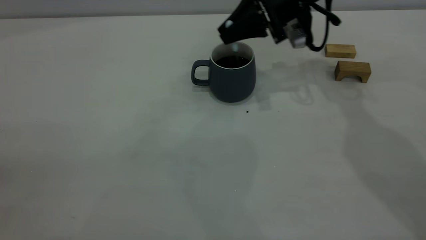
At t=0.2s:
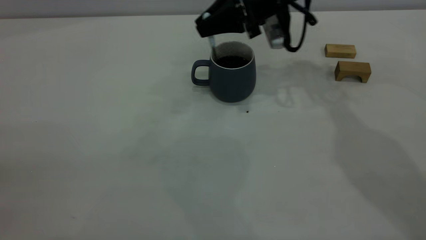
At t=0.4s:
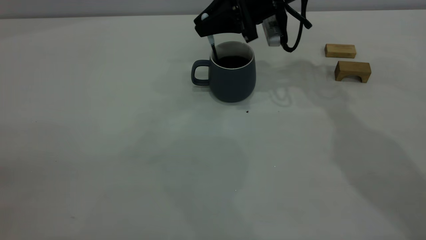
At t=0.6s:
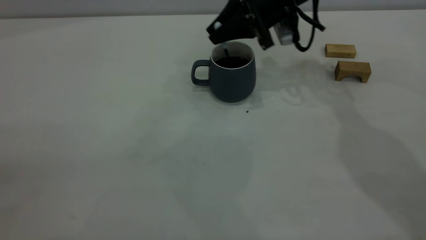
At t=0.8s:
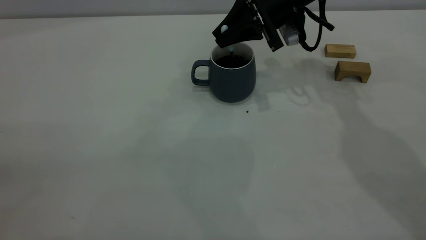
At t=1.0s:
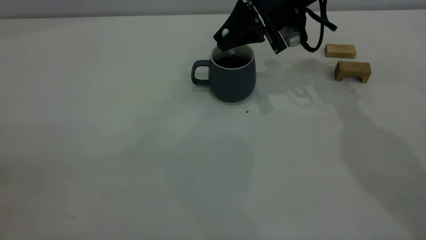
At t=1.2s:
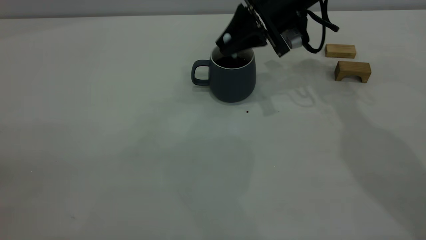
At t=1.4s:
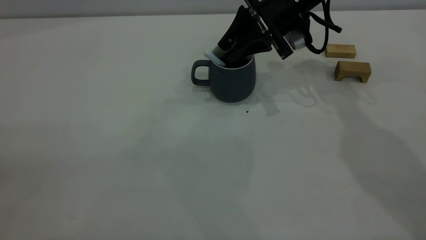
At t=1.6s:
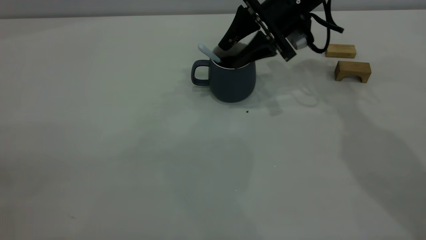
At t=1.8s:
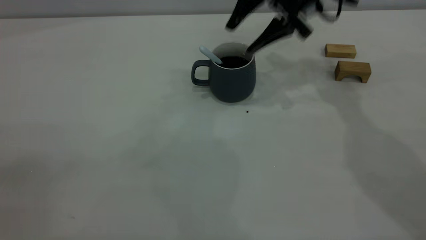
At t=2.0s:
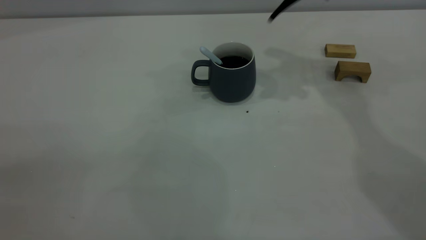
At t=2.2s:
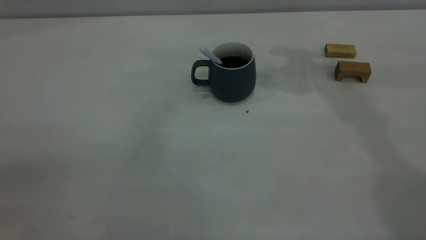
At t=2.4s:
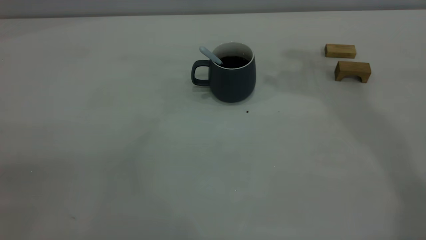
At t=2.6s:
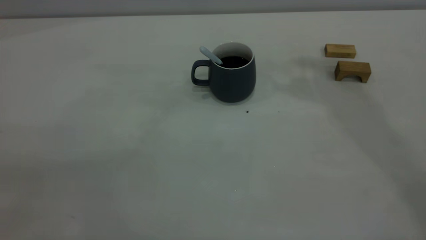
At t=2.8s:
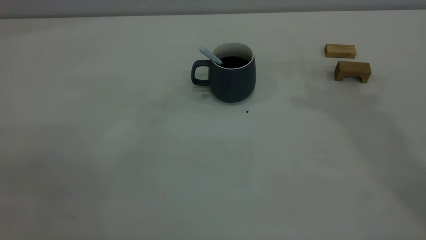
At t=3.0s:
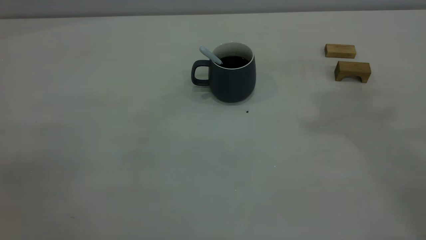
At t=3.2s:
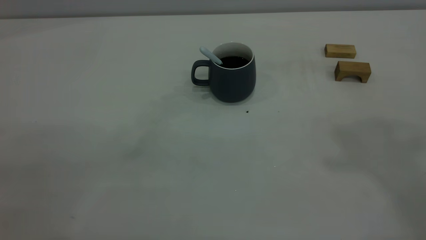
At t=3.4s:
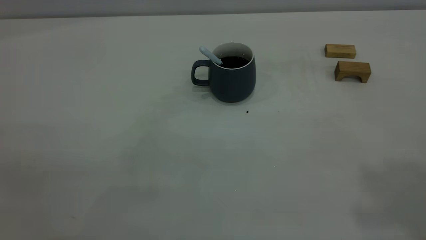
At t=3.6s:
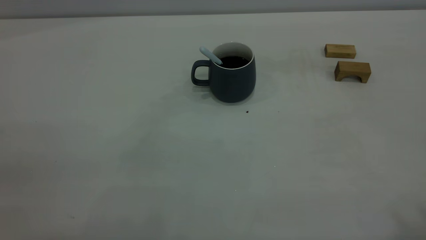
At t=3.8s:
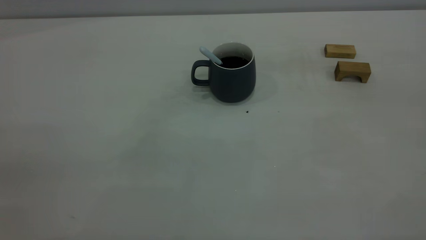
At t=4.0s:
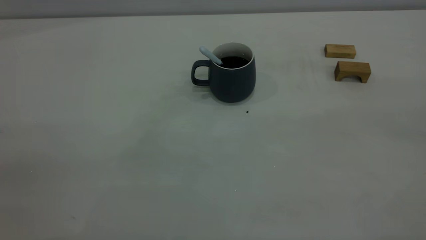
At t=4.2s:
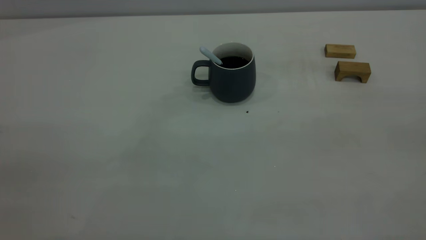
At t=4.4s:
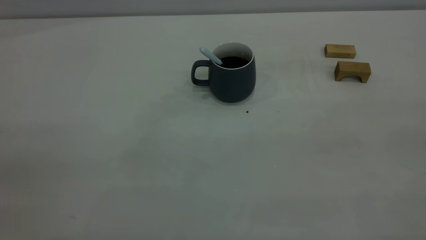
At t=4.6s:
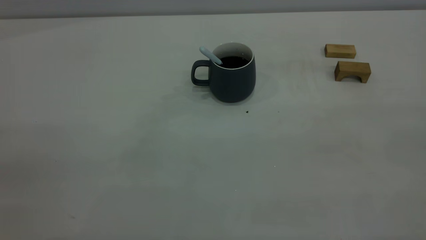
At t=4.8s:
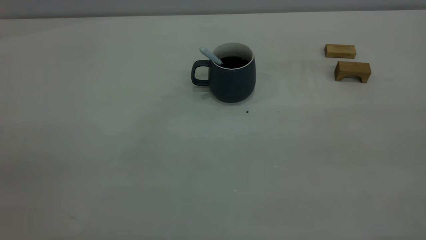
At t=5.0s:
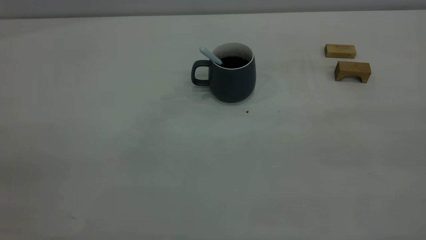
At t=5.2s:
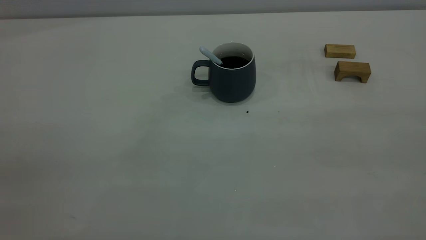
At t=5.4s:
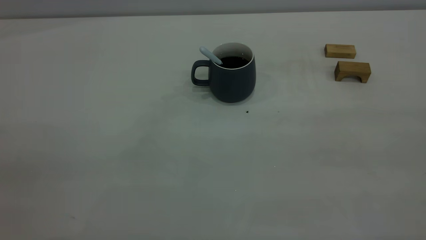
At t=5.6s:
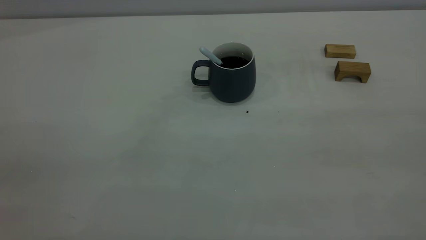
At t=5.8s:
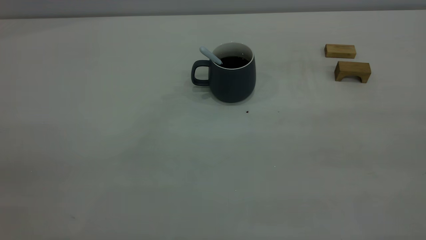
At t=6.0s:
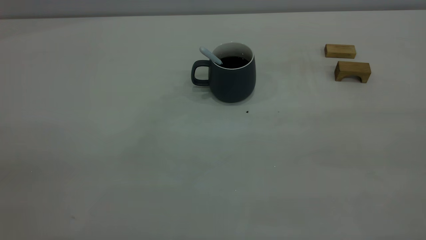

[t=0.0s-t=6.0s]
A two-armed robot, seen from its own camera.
t=0.0s to t=1.6s: The right gripper opens its fingers.
t=1.6s to t=3.0s: The right gripper moves upward and backward, some 50 cm.

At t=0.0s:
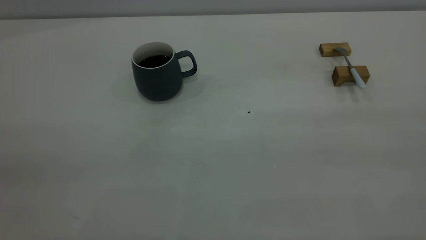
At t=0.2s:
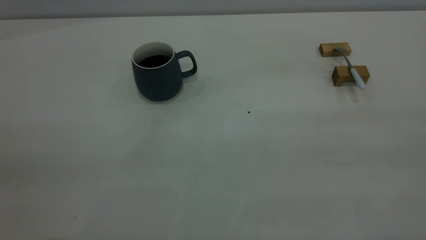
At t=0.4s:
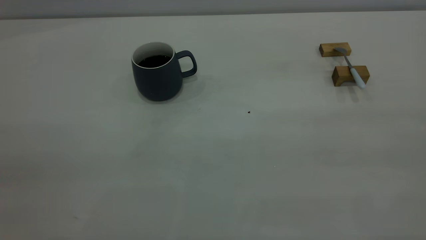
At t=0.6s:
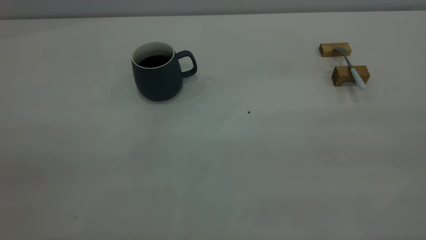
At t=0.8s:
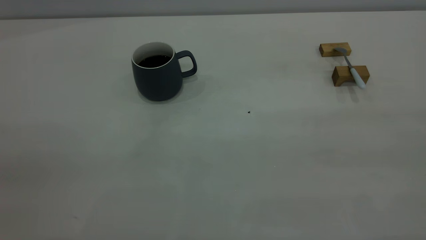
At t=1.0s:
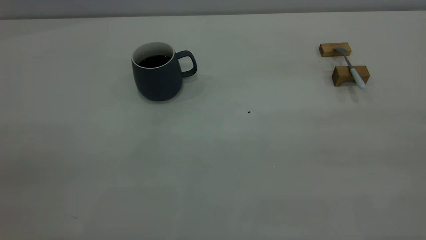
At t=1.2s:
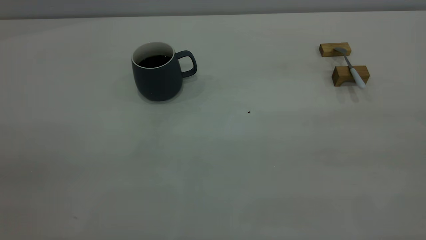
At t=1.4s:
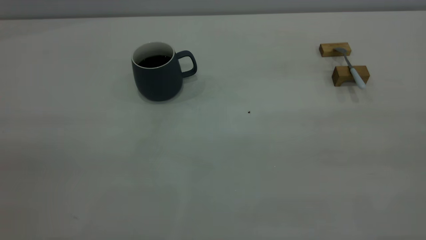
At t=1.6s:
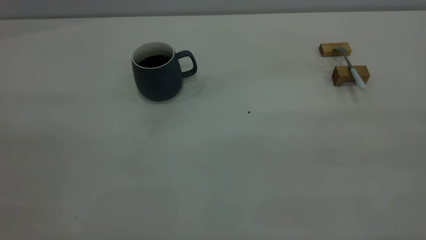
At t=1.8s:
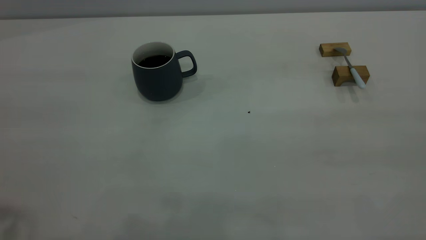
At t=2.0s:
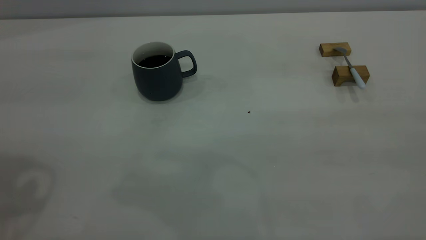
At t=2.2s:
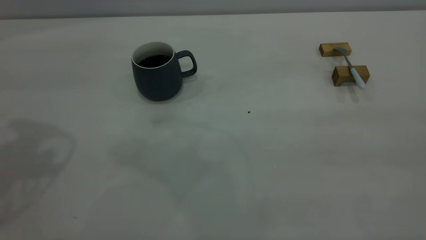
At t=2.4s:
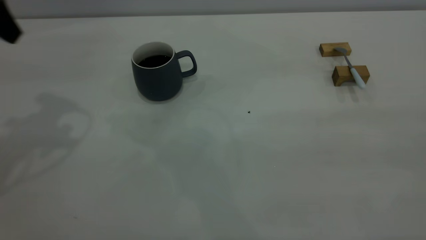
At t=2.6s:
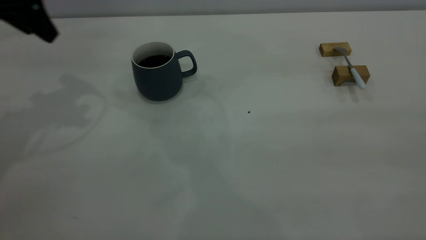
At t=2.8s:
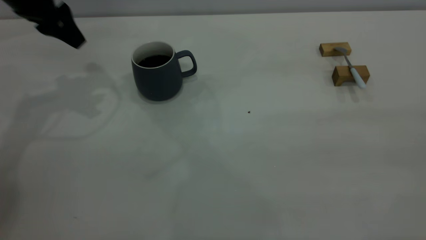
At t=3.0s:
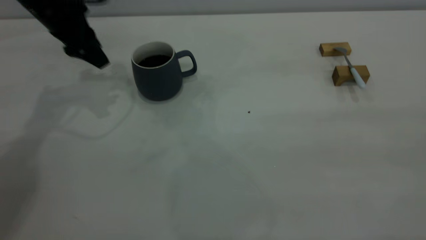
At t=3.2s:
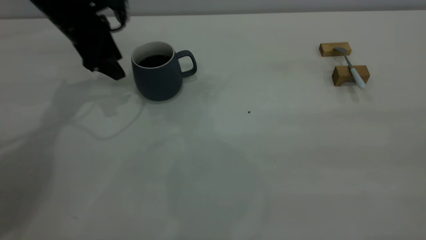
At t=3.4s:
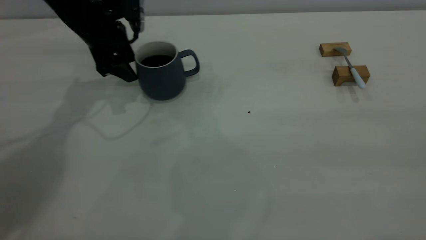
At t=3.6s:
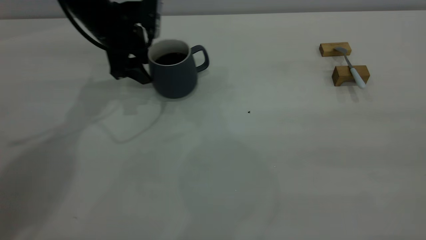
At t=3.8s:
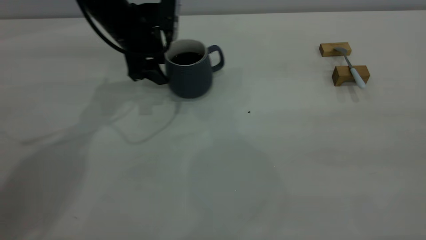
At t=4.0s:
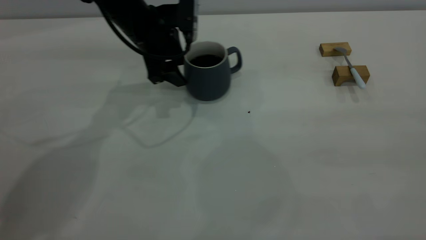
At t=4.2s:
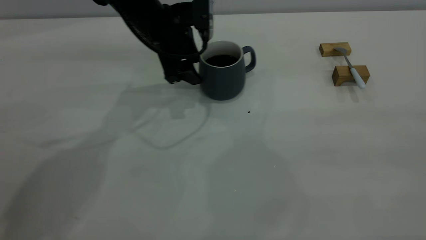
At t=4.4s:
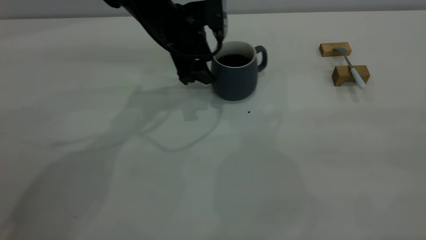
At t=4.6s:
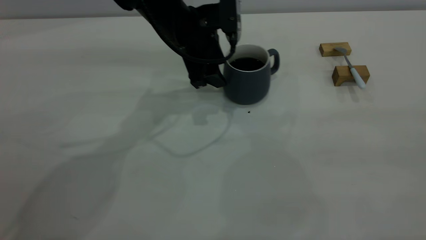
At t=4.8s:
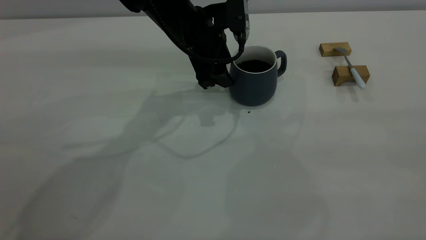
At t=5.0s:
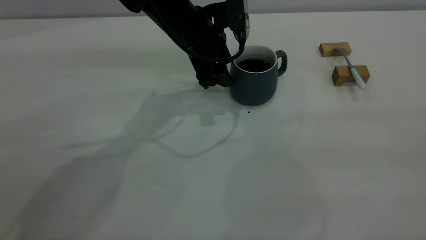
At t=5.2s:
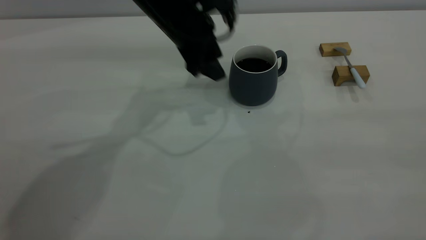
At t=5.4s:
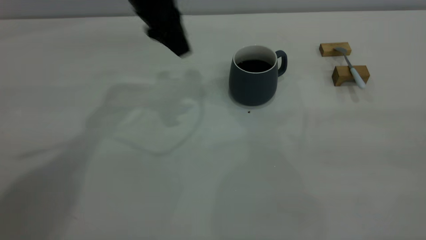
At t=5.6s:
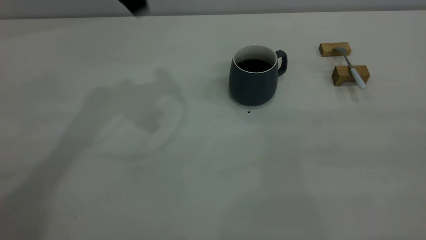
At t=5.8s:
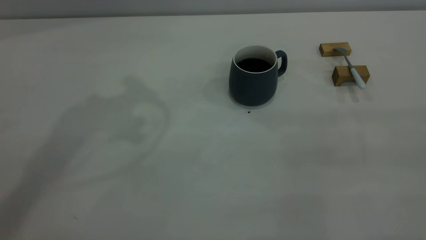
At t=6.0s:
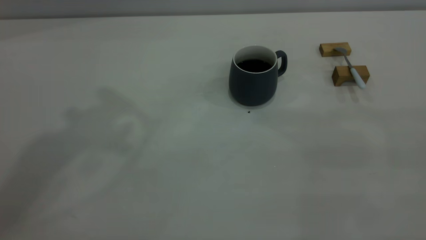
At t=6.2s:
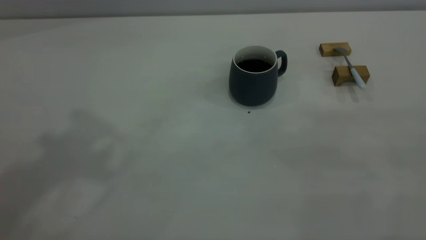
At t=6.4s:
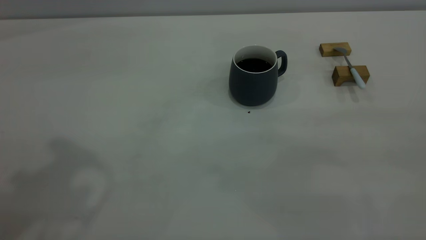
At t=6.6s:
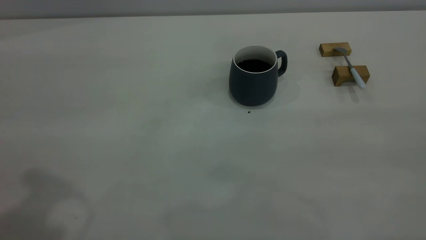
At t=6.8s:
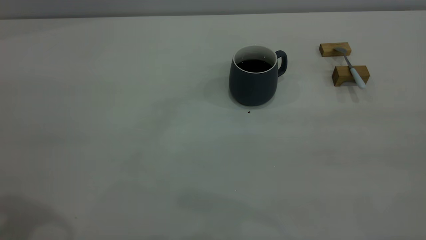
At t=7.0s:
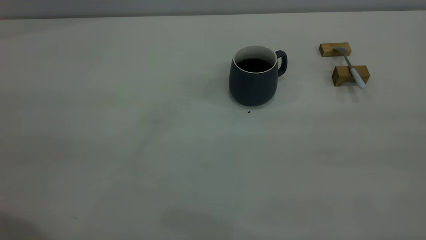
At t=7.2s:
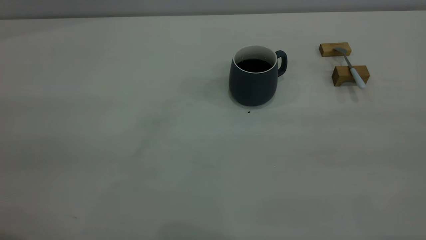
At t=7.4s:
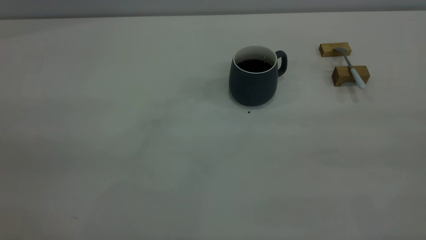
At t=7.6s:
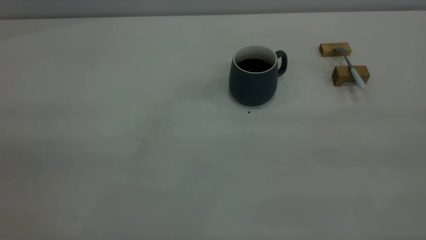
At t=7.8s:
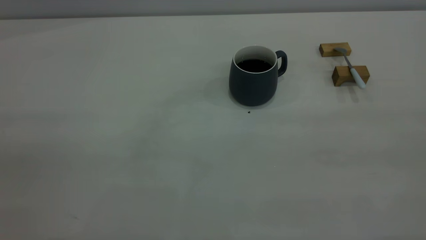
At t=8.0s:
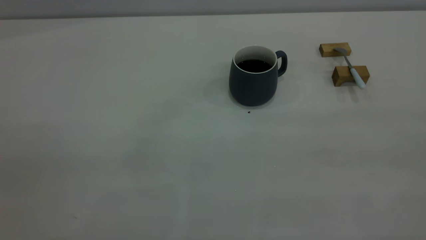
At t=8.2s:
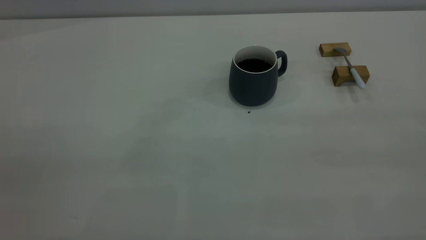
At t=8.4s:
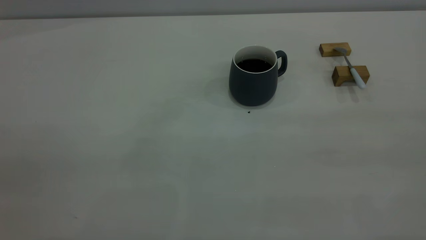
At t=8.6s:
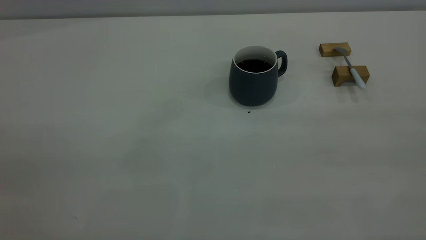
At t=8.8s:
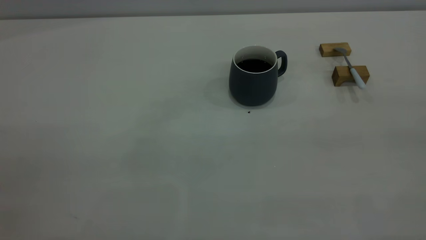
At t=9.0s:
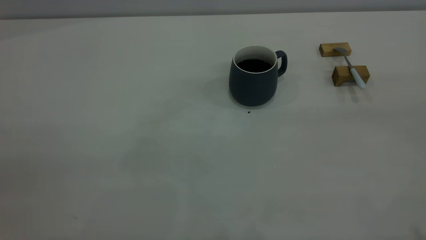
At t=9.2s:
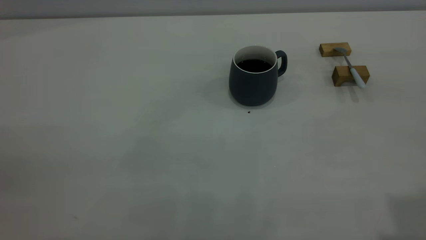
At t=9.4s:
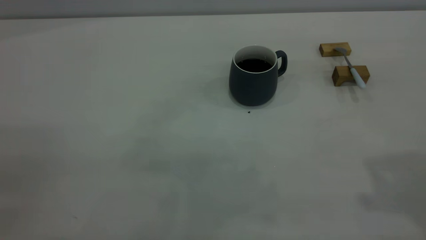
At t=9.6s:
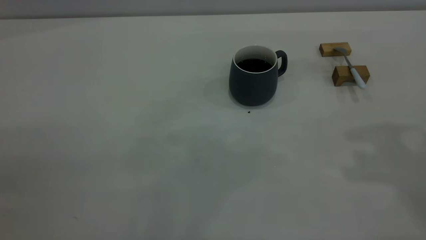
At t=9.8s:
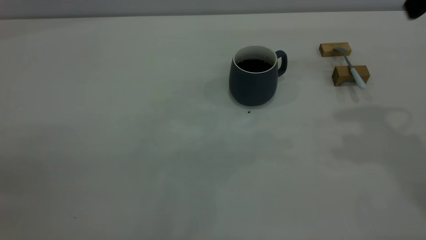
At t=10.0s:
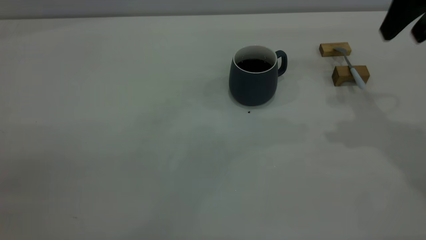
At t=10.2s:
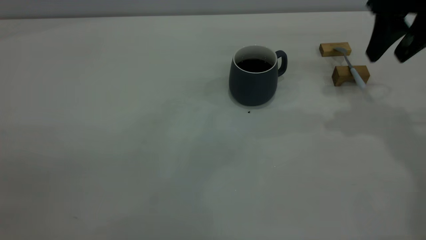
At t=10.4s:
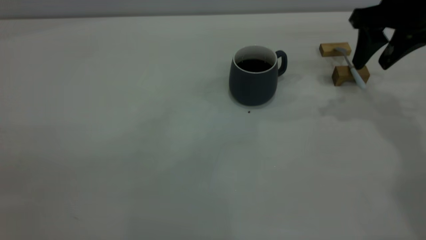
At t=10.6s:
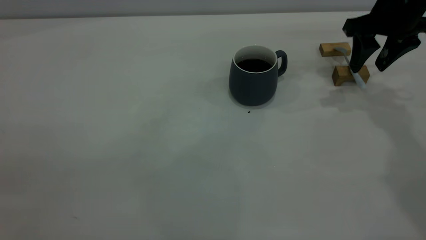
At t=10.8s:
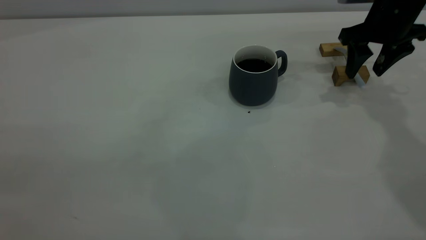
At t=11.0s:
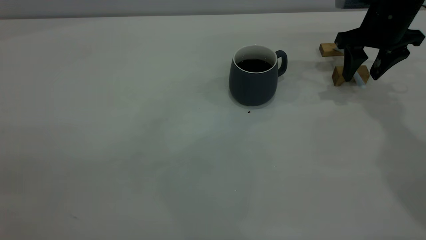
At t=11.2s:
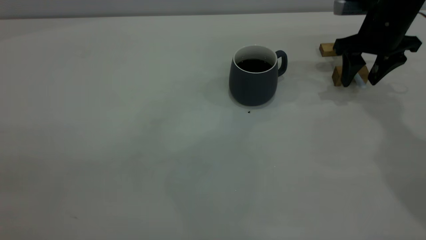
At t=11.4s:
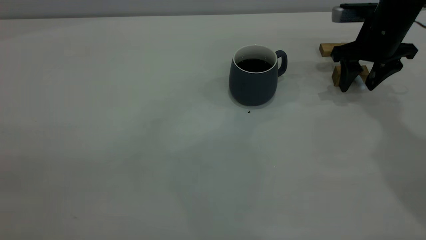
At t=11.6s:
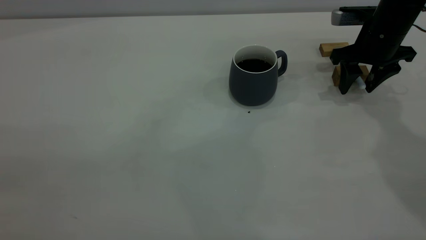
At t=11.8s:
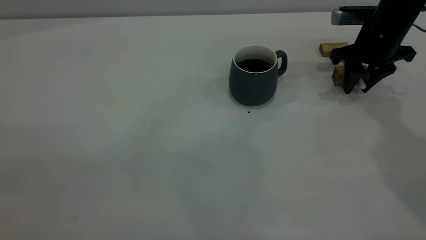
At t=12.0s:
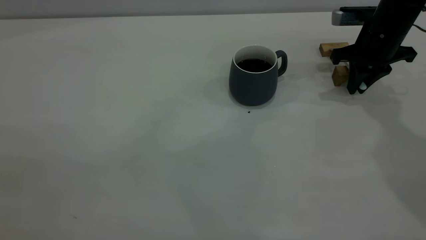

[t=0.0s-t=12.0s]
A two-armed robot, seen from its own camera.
Step, t=0.0s to t=5.2s: Move the cup with coffee to the center of view.
t=1.6s to t=3.0s: The left gripper travels forward and downward by approximately 40 cm.
t=3.0s to t=4.4s: The left gripper moves to the right, approximately 15 cm.
t=4.4s to t=6.0s: The left gripper moves upward, approximately 35 cm.
t=9.0s to t=10.4s: The right gripper moves forward and downward, approximately 40 cm.
t=10.4s to t=12.0s: The right gripper is displaced downward by about 10 cm, and closes up.
